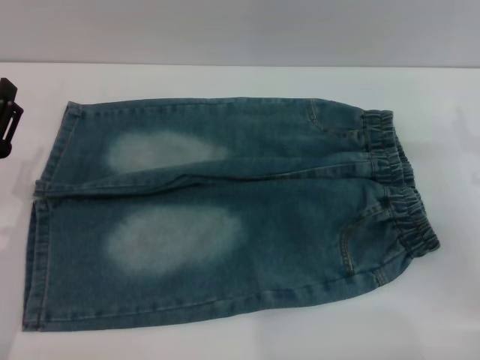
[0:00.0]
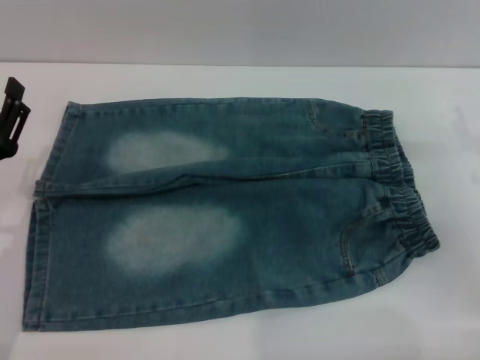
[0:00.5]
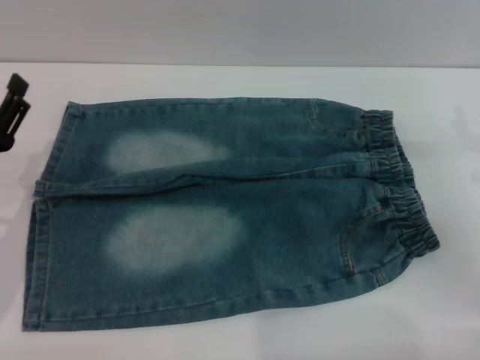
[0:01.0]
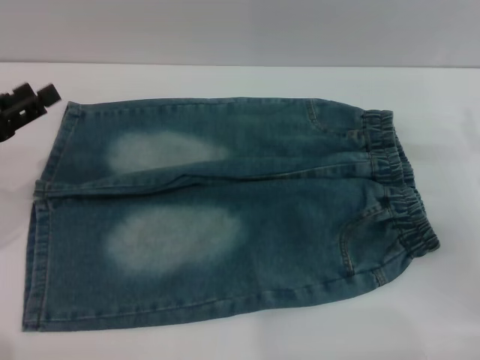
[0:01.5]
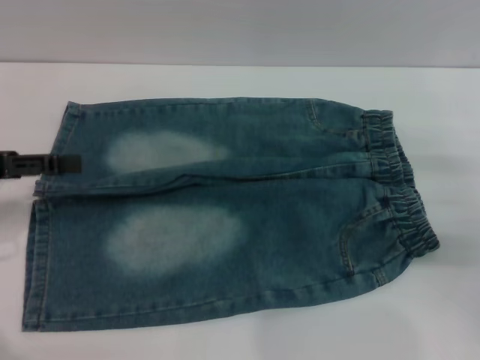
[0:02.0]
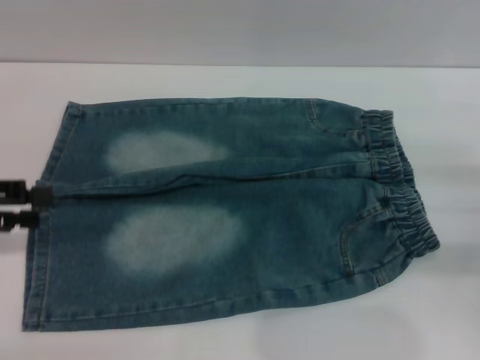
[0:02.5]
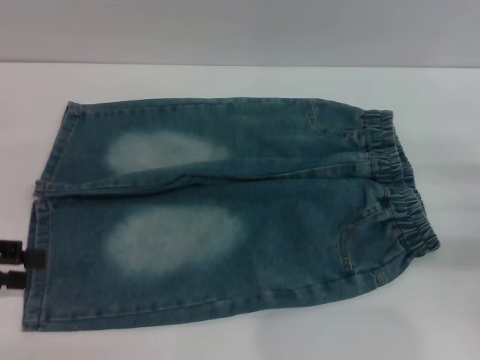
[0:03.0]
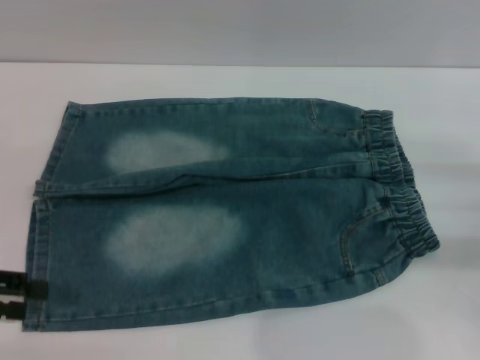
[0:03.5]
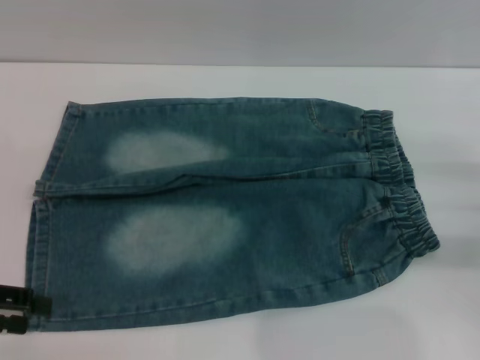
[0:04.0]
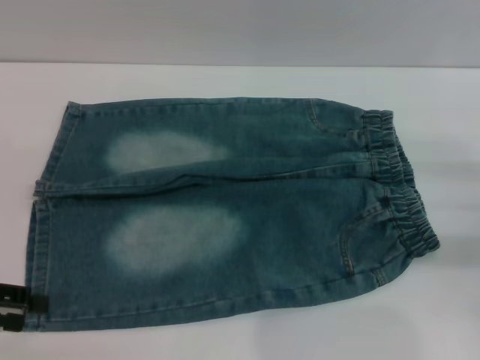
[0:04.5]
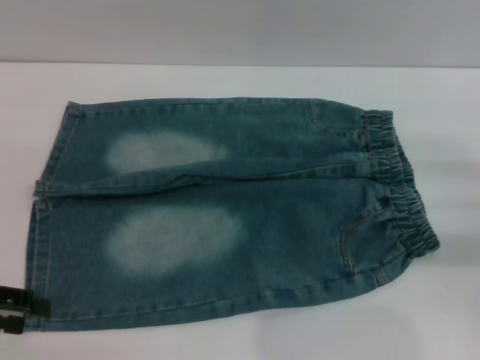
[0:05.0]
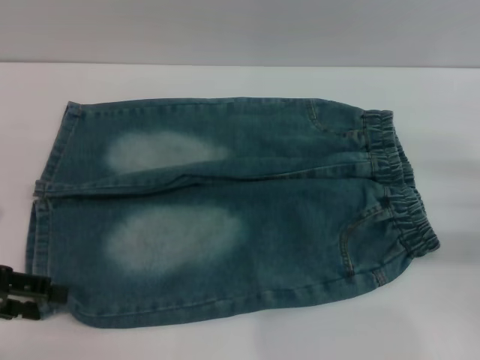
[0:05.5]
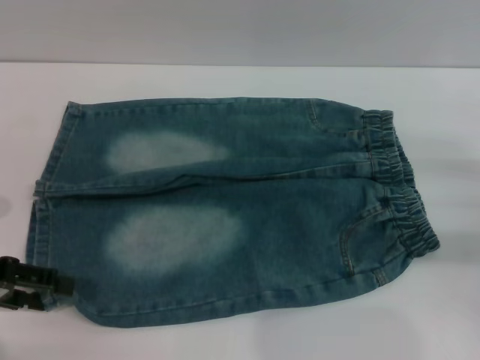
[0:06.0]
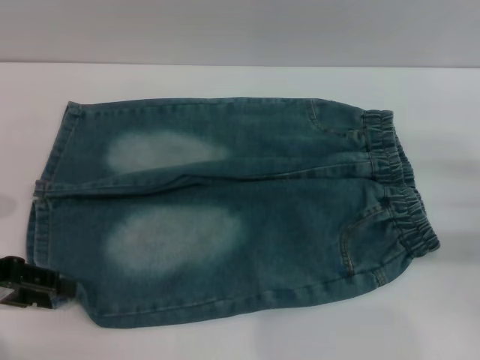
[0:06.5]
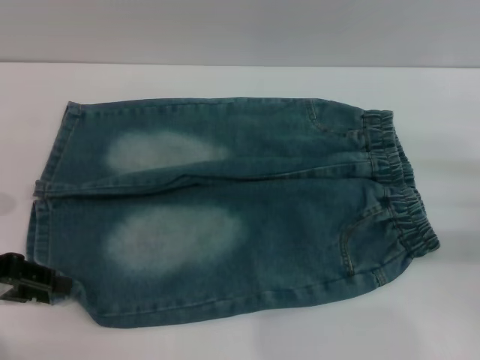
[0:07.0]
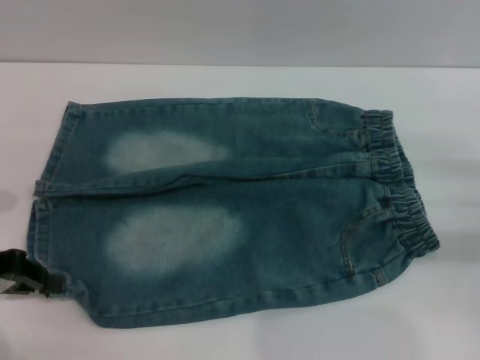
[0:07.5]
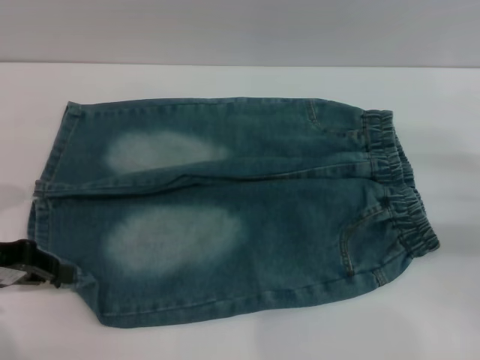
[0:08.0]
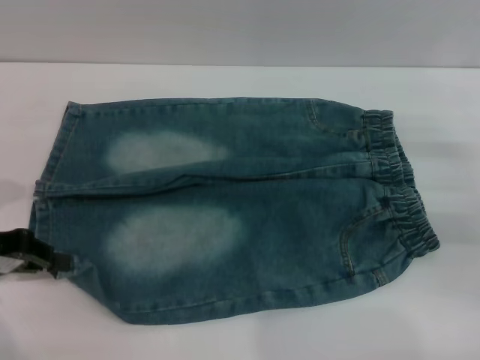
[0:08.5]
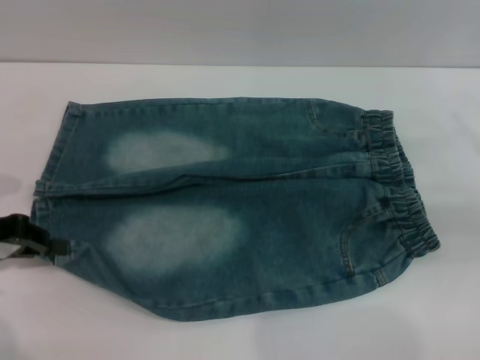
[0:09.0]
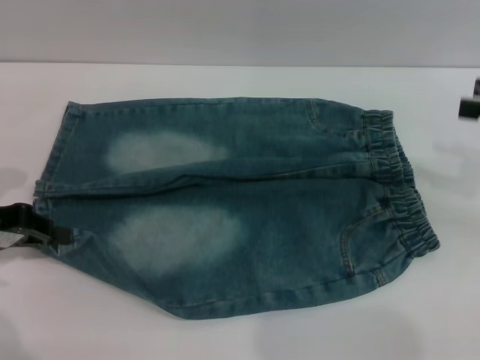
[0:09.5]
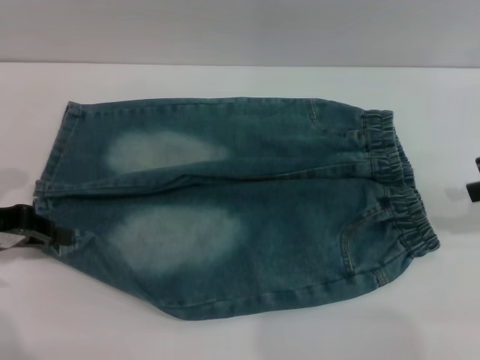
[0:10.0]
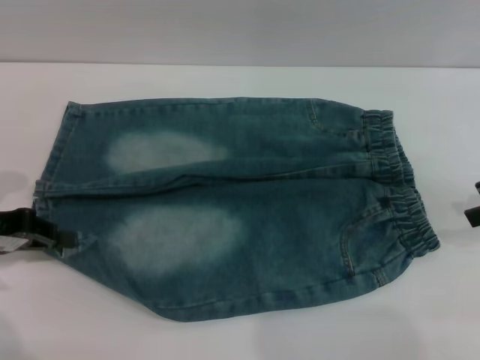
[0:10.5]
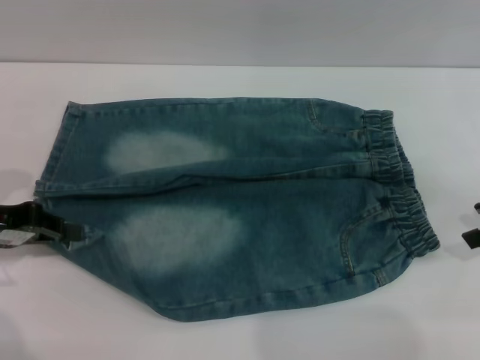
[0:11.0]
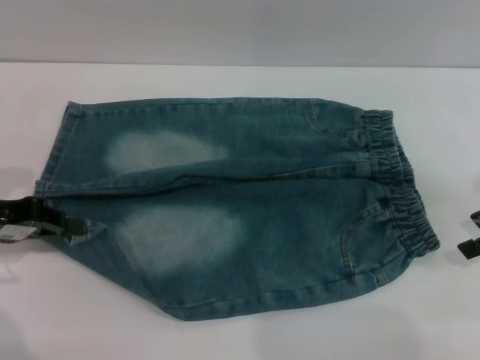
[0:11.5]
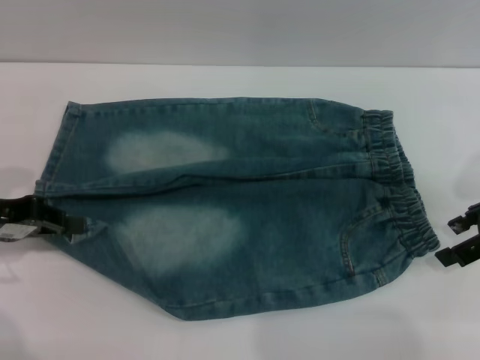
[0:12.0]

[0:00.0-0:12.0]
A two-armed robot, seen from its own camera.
0:00.0 to 0:02.0: The left gripper is displaced upward, to the left and forward by approximately 15 cm.
0:02.0 to 0:04.0: The left gripper moves backward, some 5 cm.
0:04.0 to 0:06.0: The grippers move only a little.
0:06.0 to 0:08.0: The left gripper closes its fingers.
0:08.0 to 0:10.0: The right gripper goes roughly 15 cm upward.
0:10.0 to 0:12.0: The right gripper travels downward by some 5 cm.

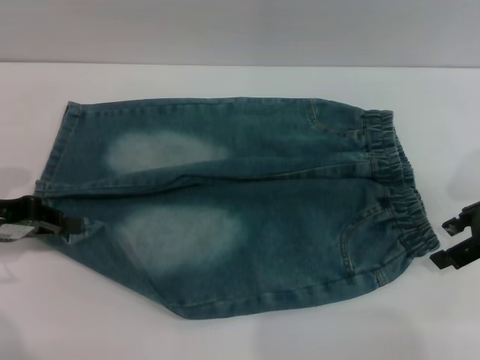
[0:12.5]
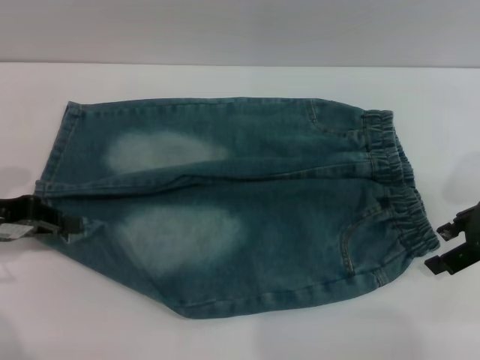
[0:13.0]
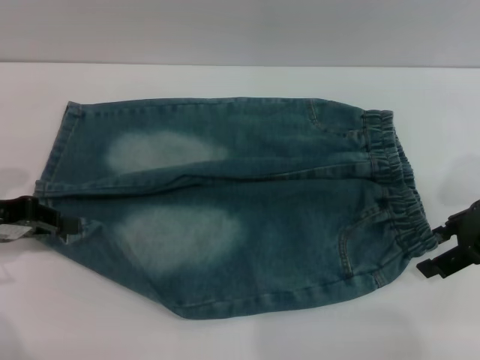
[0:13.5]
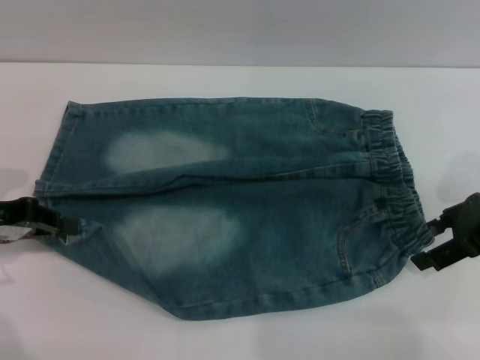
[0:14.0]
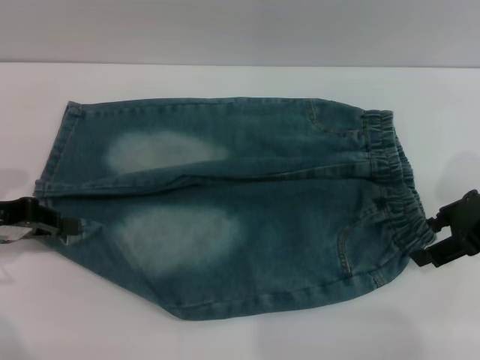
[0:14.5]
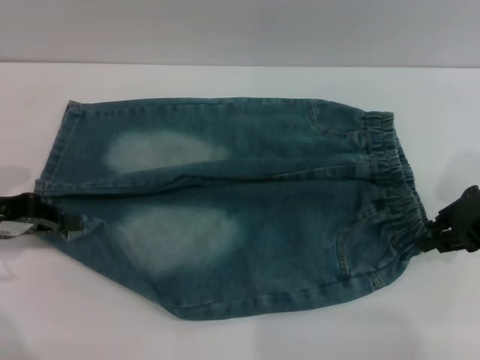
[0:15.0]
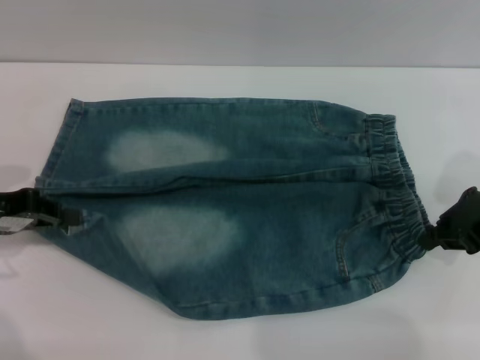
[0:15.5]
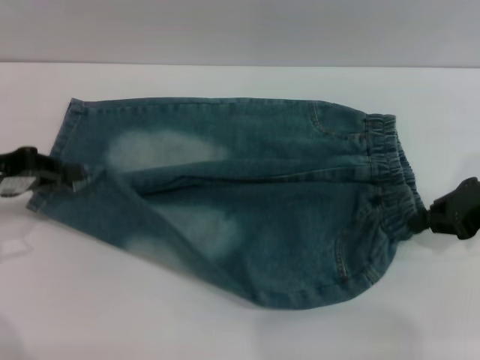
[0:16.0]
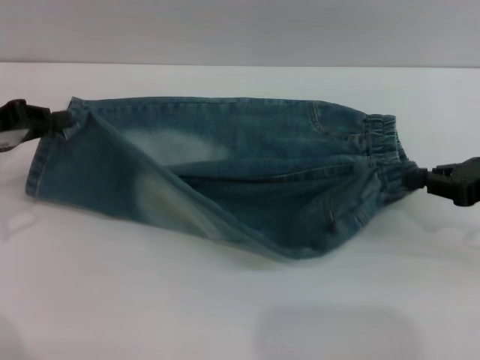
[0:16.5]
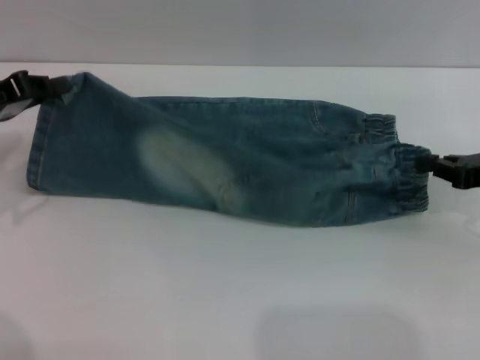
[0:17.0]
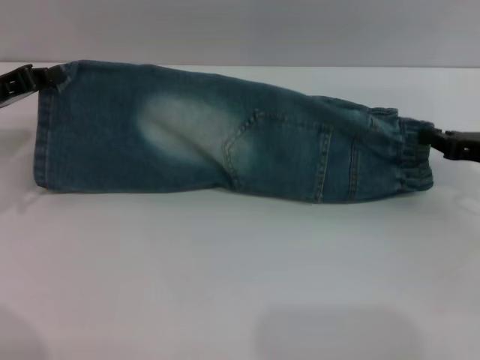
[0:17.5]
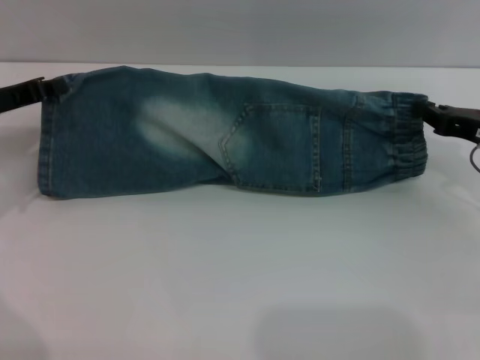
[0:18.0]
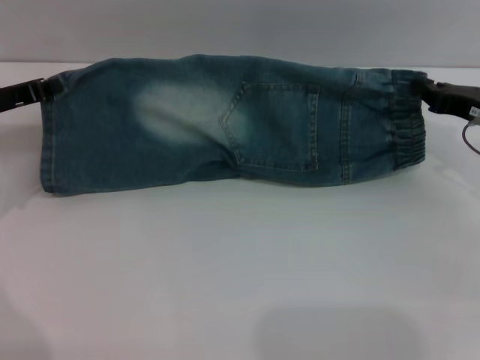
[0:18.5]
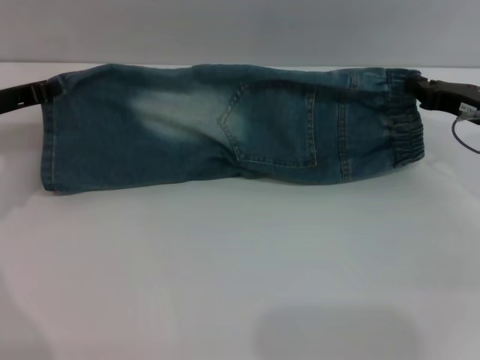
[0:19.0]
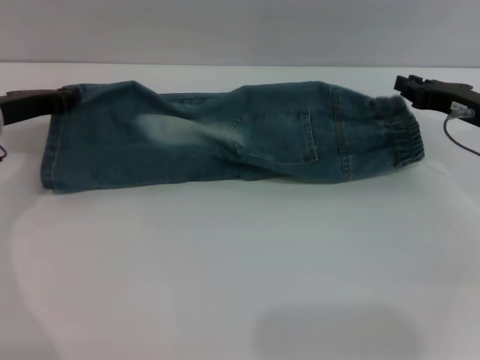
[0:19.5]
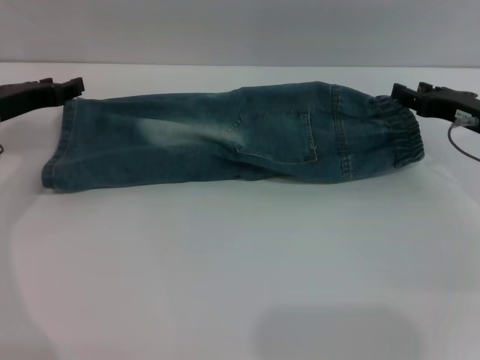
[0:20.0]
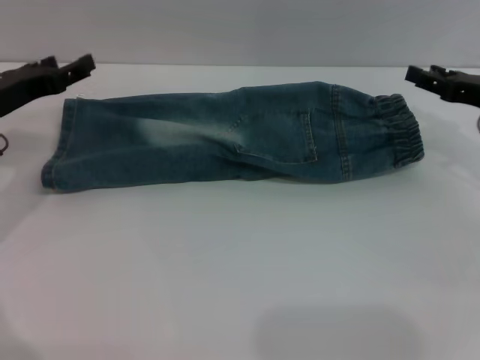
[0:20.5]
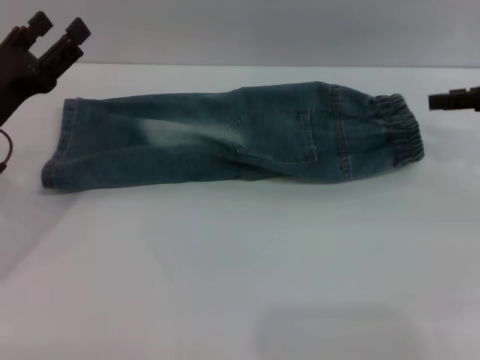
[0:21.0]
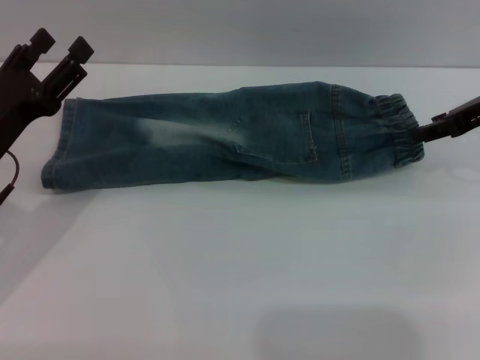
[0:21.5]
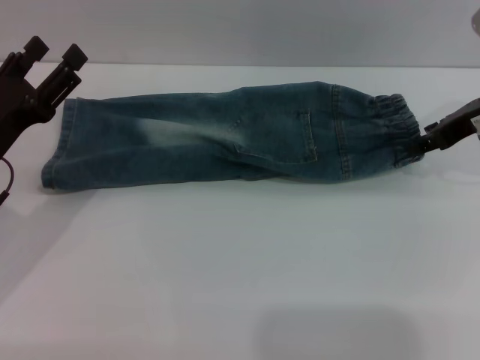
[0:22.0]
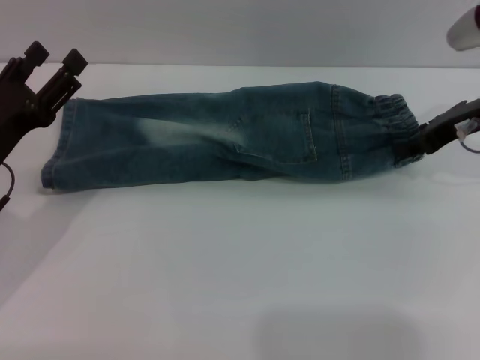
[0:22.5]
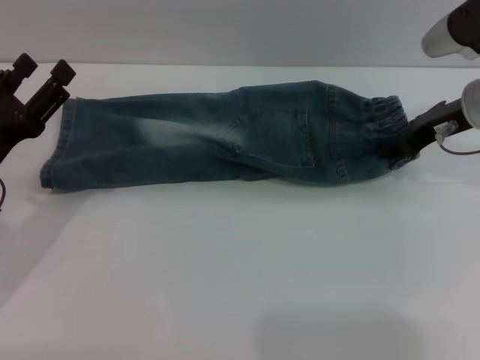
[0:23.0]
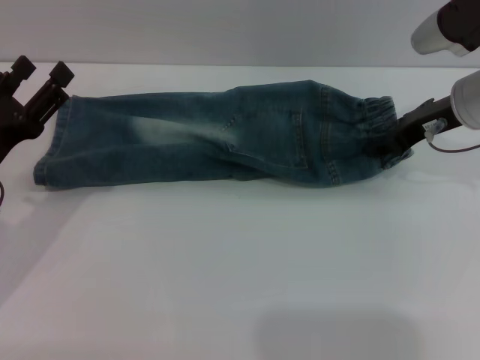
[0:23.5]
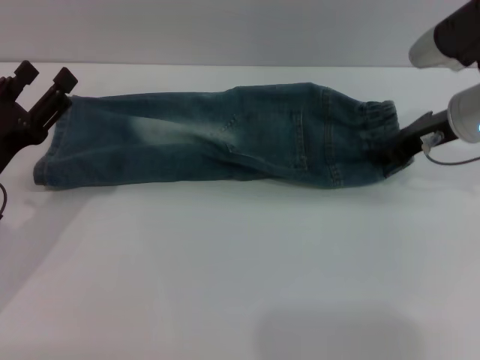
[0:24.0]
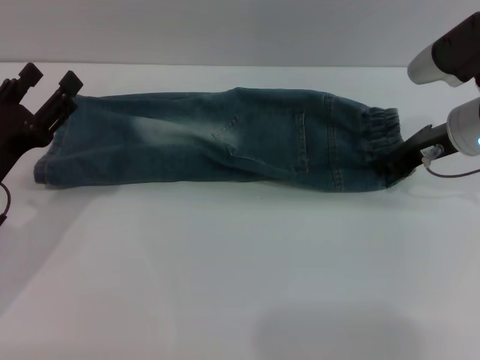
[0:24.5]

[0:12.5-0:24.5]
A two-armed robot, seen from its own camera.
Step, 0:12.5 to 0:20.0: Fold the bottom of the pants upward with both grippers.
0:12.5 to 0:14.5: The grippers make only small movements.
0:14.5 to 0:16.5: The right gripper closes.
0:16.5 to 0:18.5: The left gripper changes place by about 5 cm; the right gripper heads forward, covering some 5 cm.
0:18.5 to 0:20.5: The right gripper opens; the left gripper opens its fingers.
0:20.5 to 0:22.5: The left gripper is displaced backward by about 10 cm. The right gripper heads to the left, covering approximately 5 cm.
0:22.5 to 0:24.5: The right gripper closes up.

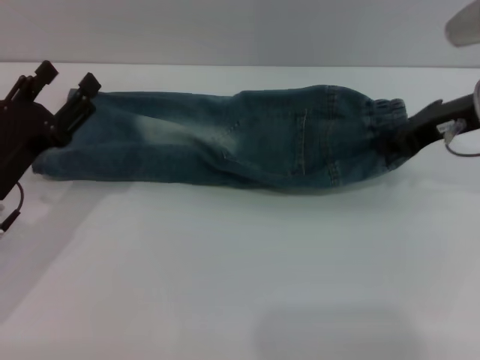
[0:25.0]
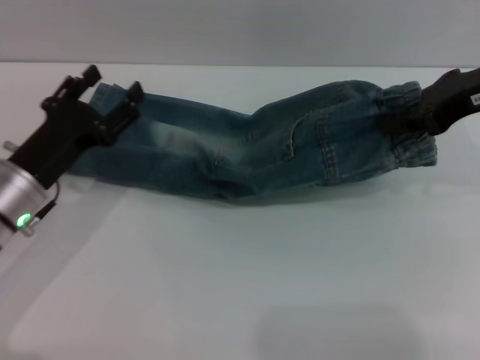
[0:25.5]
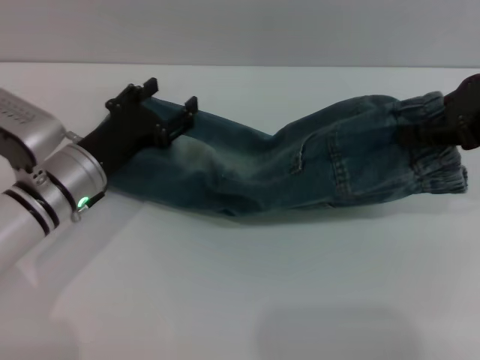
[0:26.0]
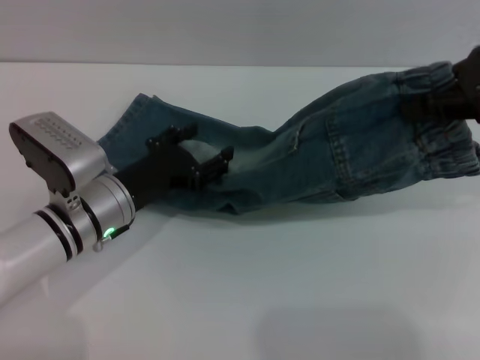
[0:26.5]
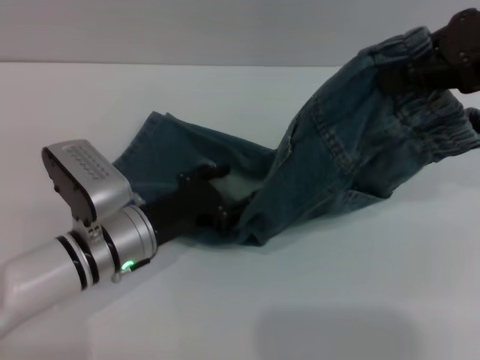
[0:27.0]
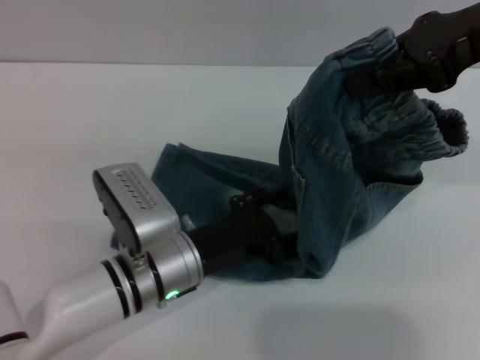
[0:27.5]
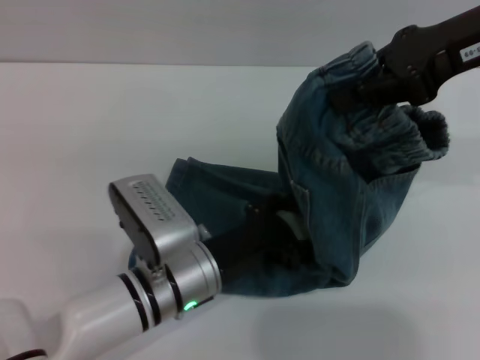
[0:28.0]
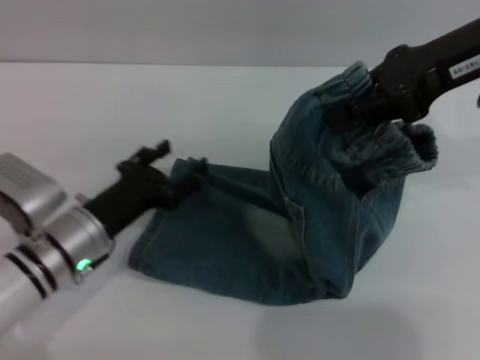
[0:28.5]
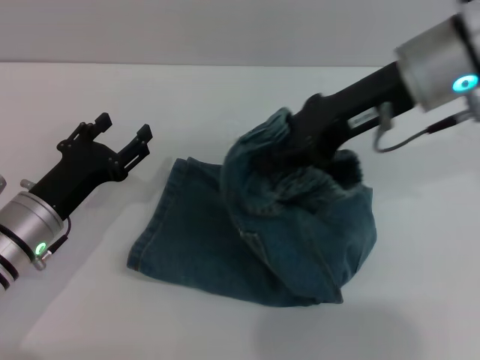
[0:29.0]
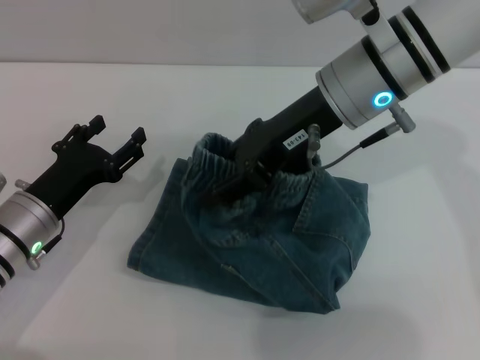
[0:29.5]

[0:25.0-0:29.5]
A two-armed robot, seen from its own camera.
0:25.0 to 0:27.0: The left gripper moves to the right, approximately 10 cm; the right gripper travels upward by approximately 15 cm.
0:27.0 to 0:29.5: The left gripper heads to the left, covering approximately 10 cm. Meanwhile the right gripper goes approximately 20 cm to the left and downward.
